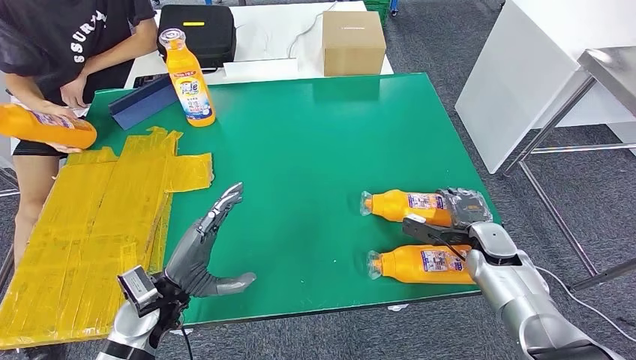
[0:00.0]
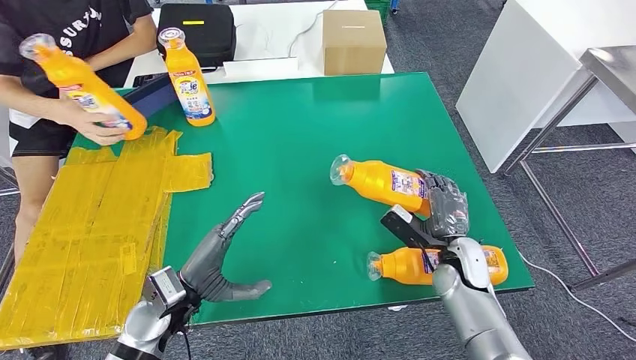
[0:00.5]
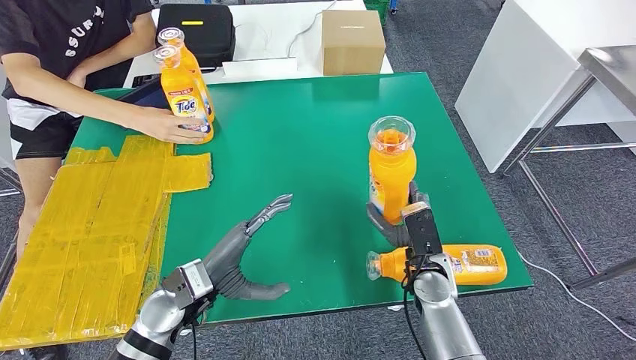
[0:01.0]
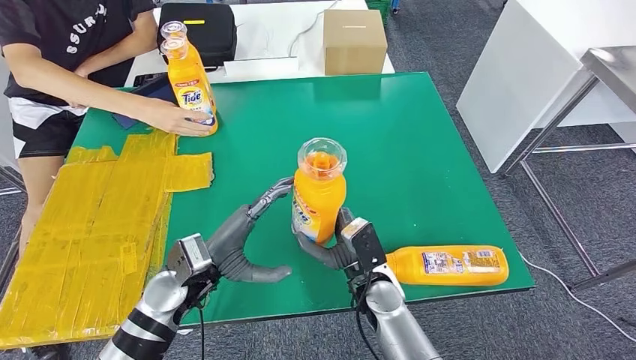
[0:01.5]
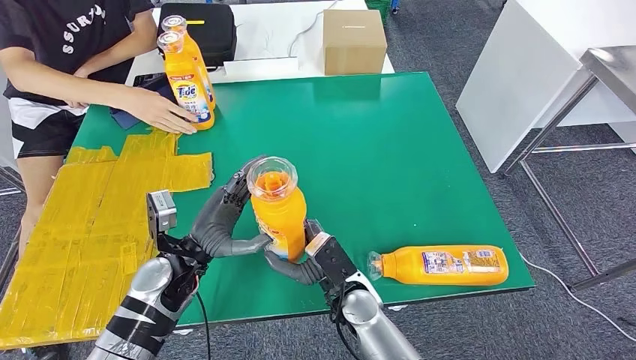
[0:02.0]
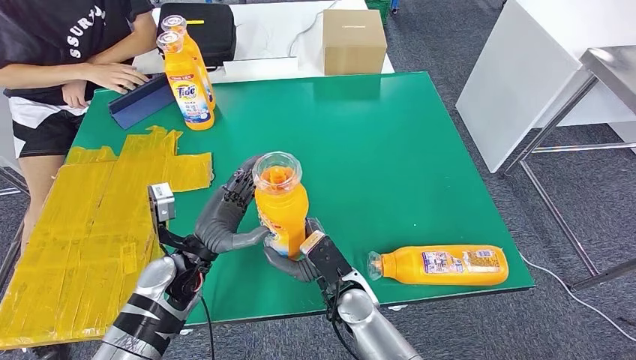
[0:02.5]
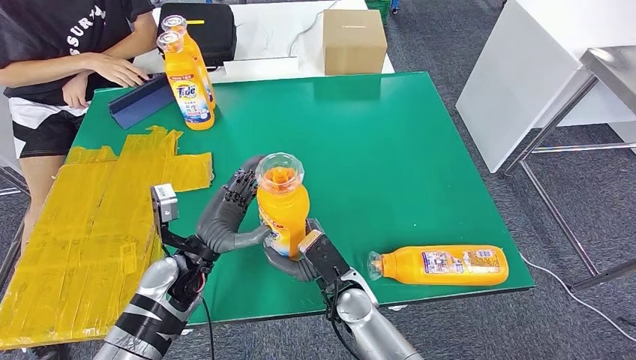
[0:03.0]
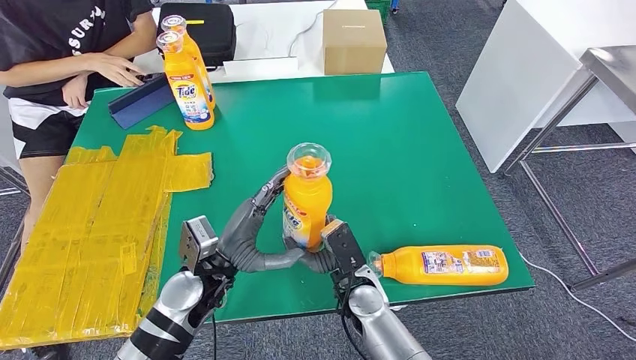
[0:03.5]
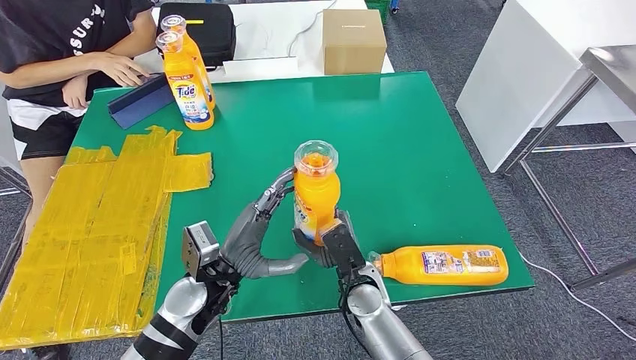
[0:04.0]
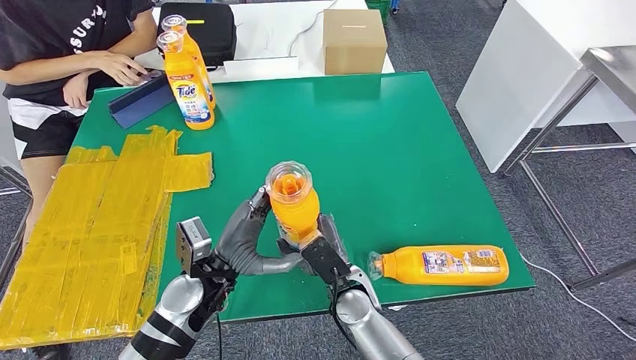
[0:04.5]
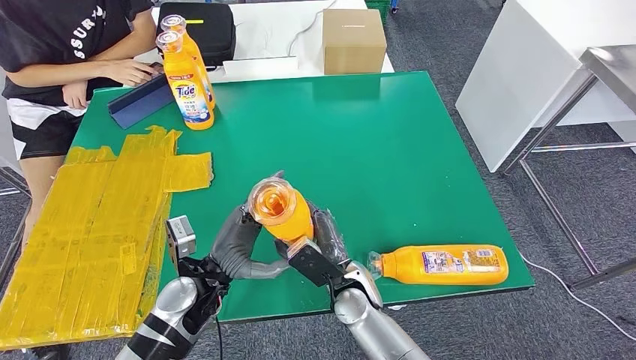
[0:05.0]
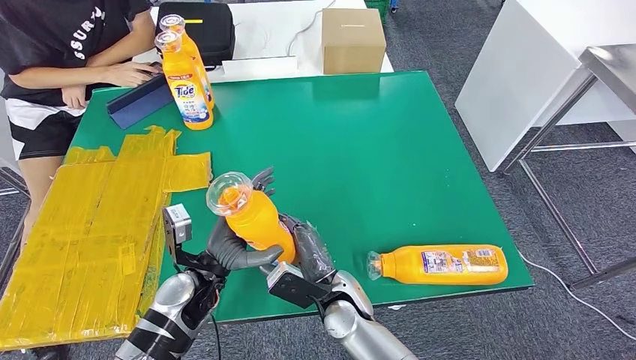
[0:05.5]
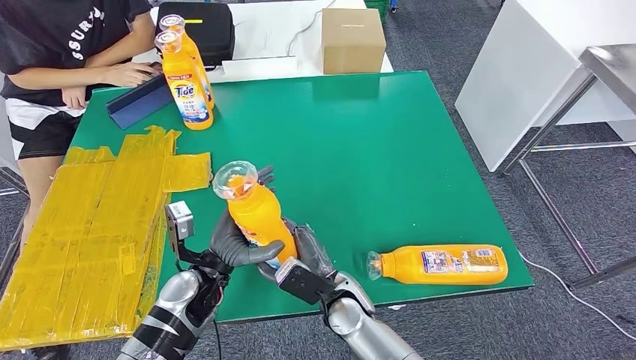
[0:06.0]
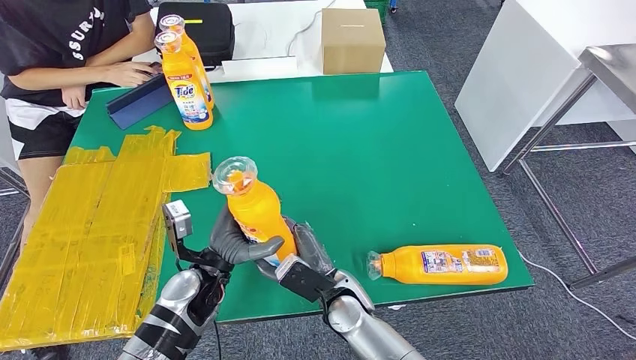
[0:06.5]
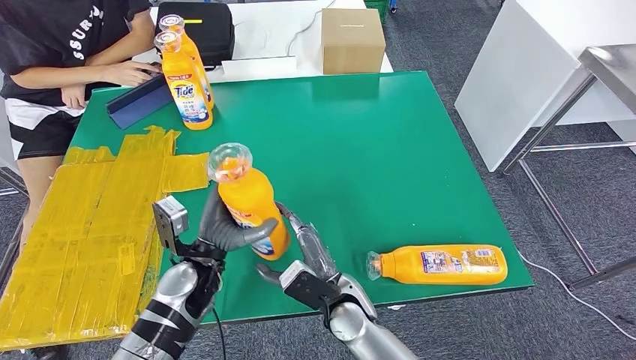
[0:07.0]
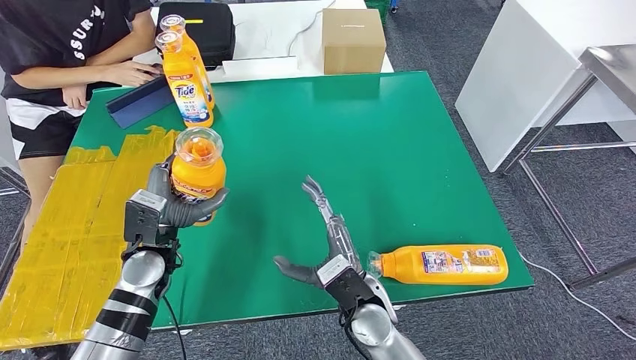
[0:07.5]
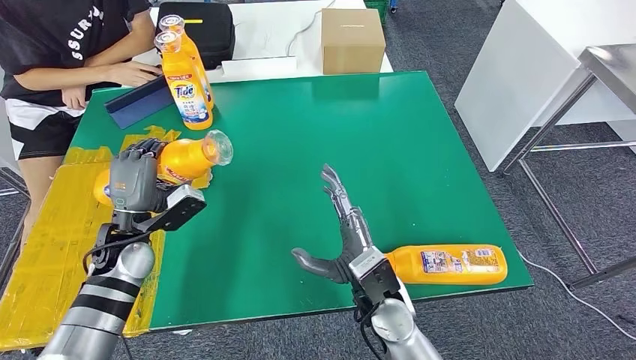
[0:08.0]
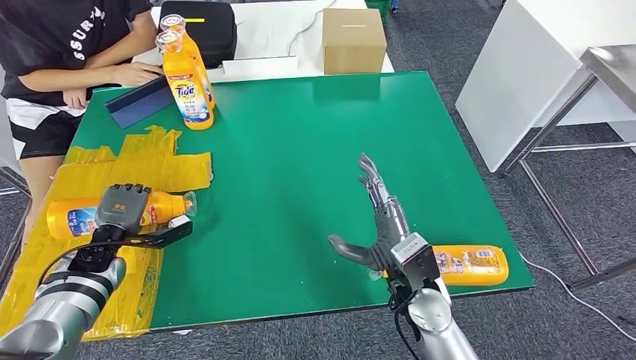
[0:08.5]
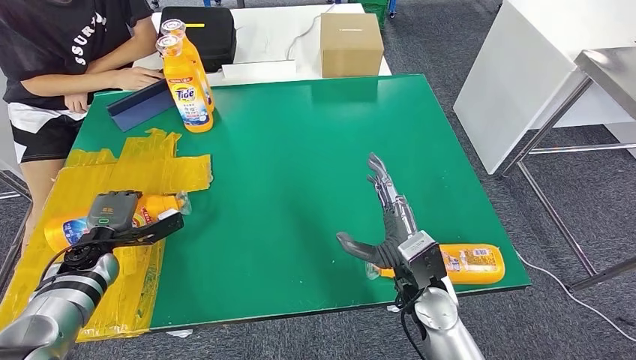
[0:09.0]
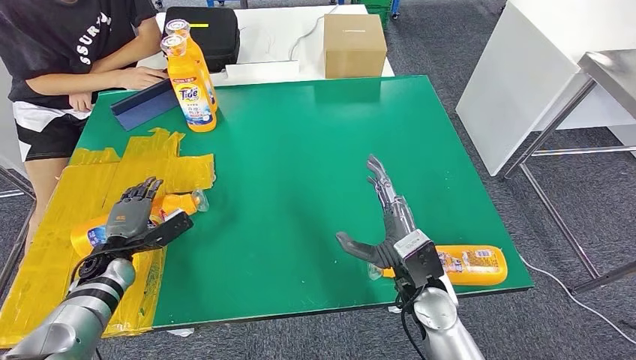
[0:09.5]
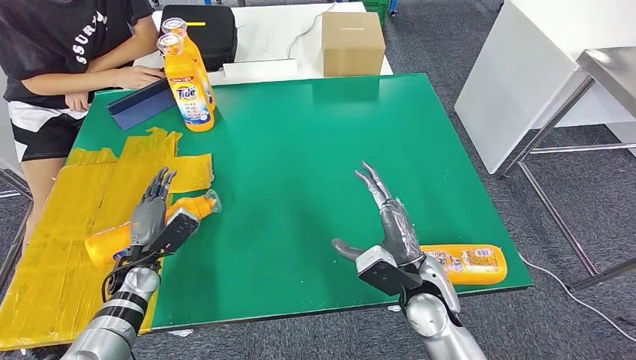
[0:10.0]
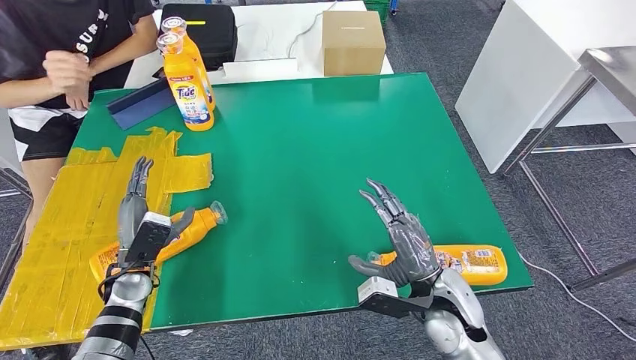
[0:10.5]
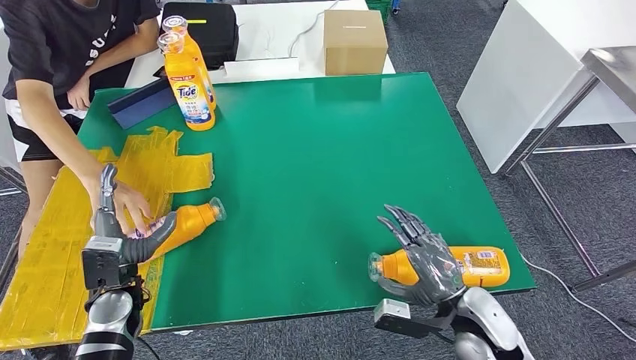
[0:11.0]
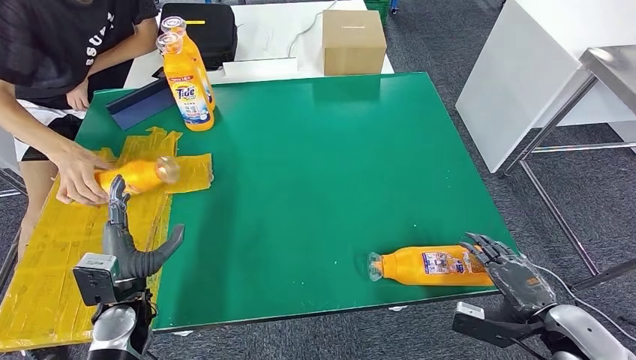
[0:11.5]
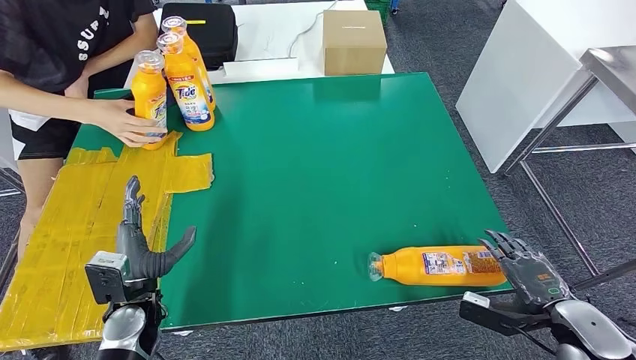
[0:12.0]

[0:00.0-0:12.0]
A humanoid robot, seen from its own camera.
Step, 0:01.5 to 0:09.5: Flip the bottle to face forward.
0:02.0 to 0:04.0: The left hand goes about 5 cm to the right.
0:04.0 to 0:06.0: The right hand moves about 5 cm.
0:06.0 to 0:08.0: The left hand goes about 15 cm to the left and forward, while the right hand shifts some 10 cm upward and to the right.

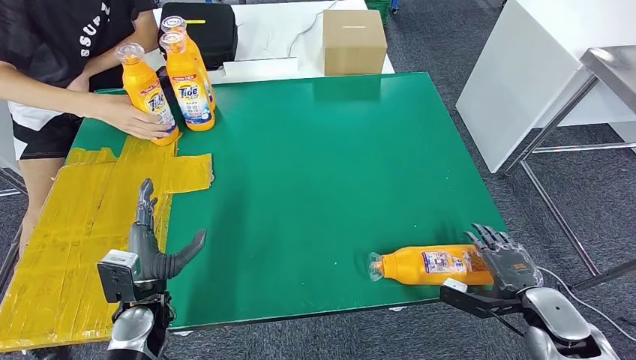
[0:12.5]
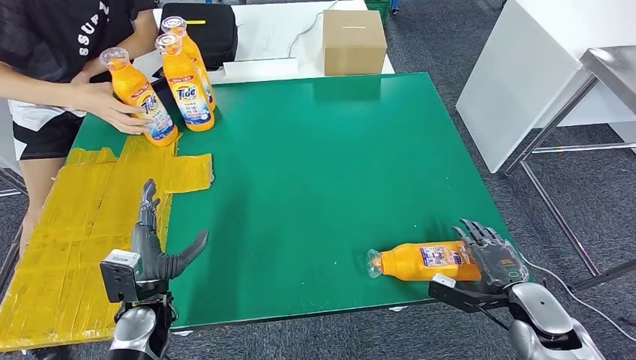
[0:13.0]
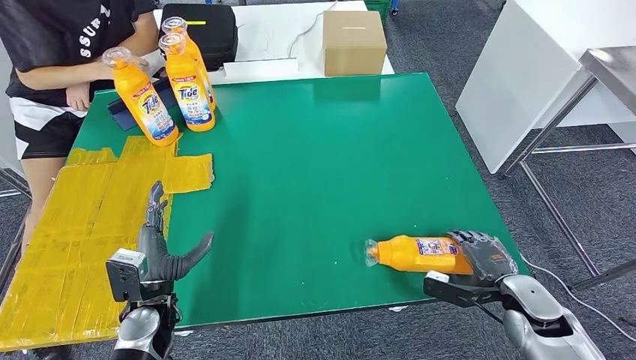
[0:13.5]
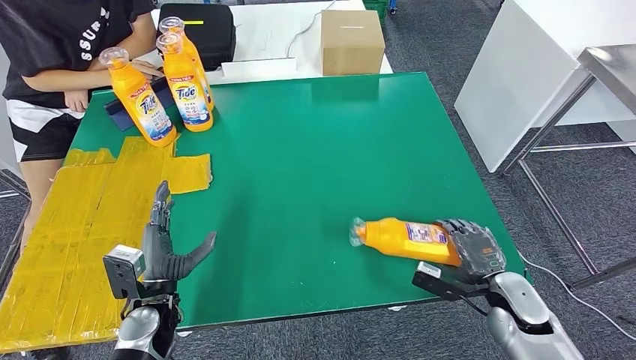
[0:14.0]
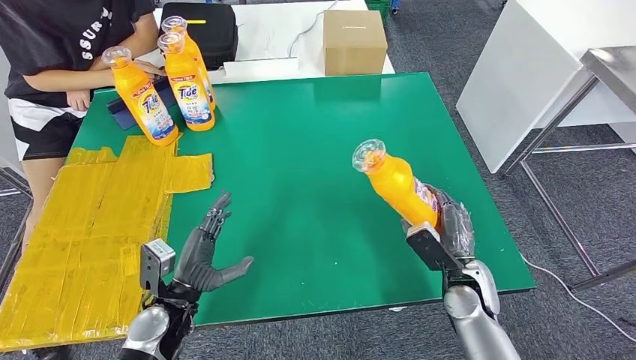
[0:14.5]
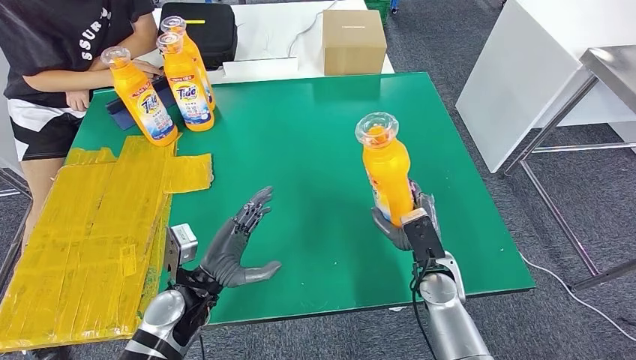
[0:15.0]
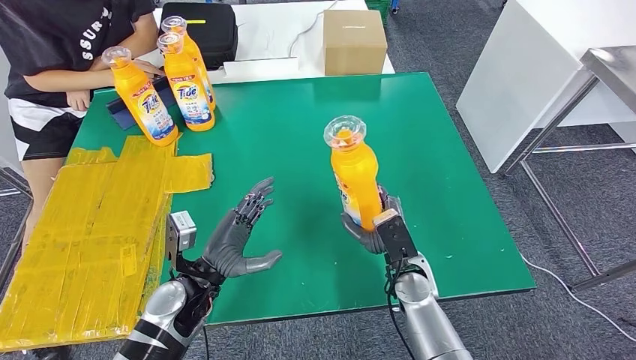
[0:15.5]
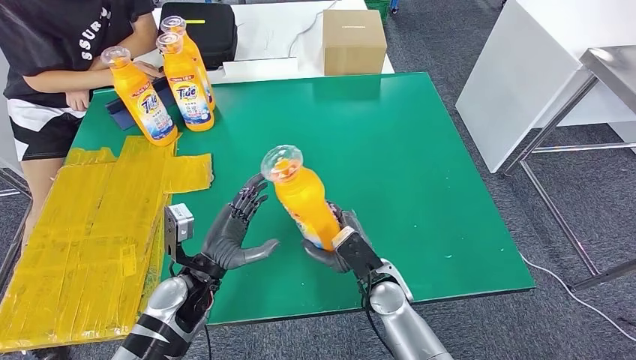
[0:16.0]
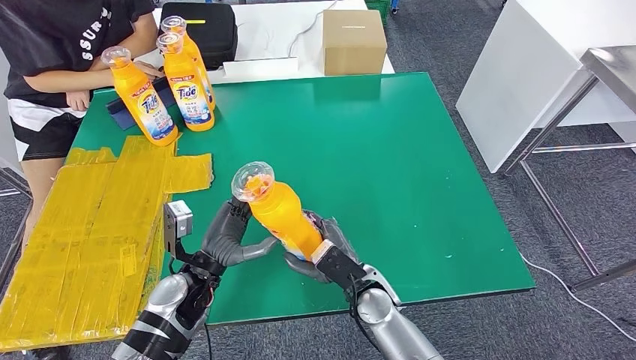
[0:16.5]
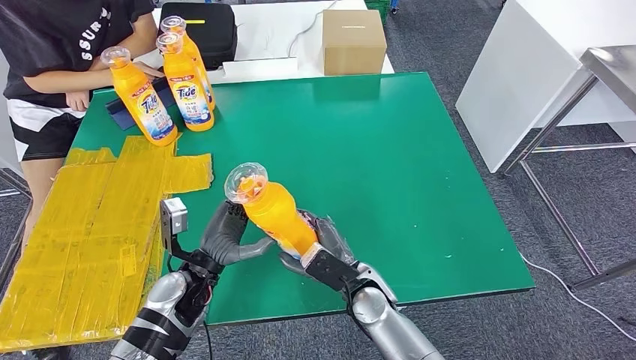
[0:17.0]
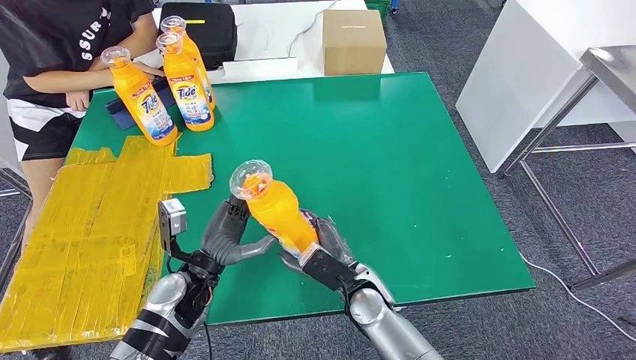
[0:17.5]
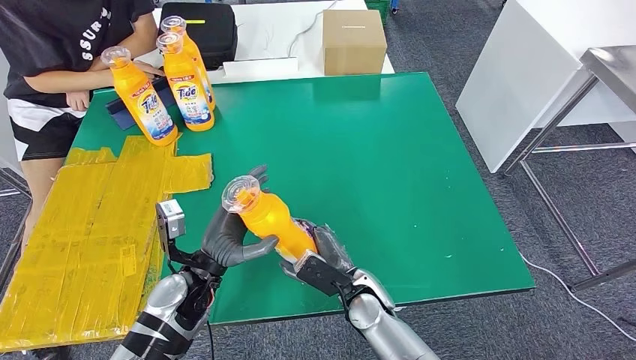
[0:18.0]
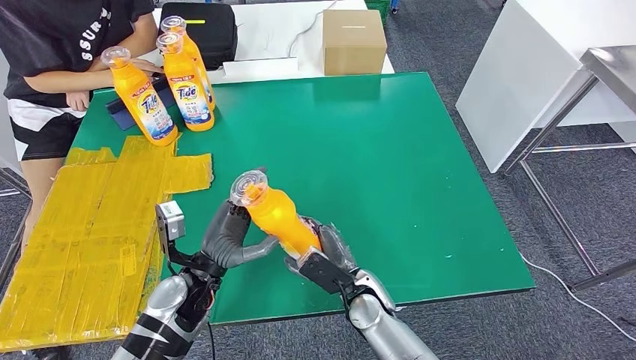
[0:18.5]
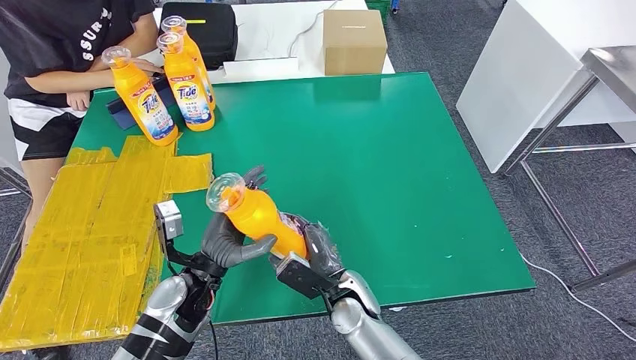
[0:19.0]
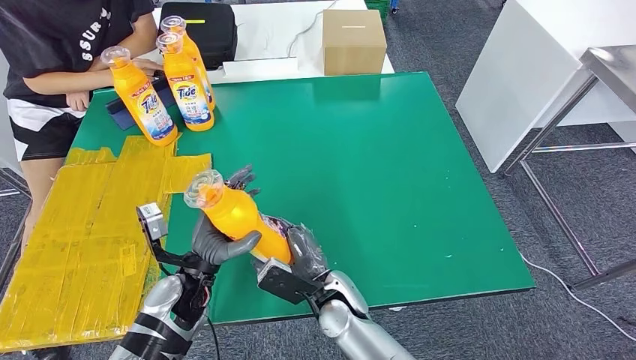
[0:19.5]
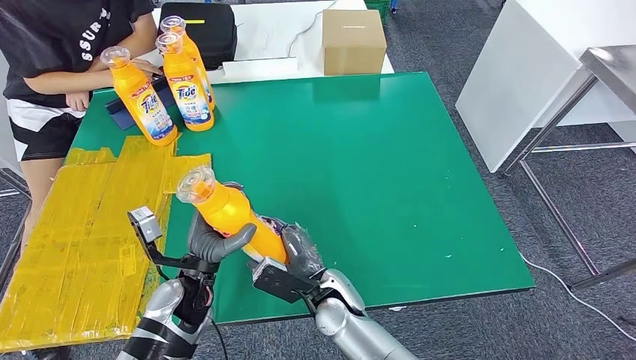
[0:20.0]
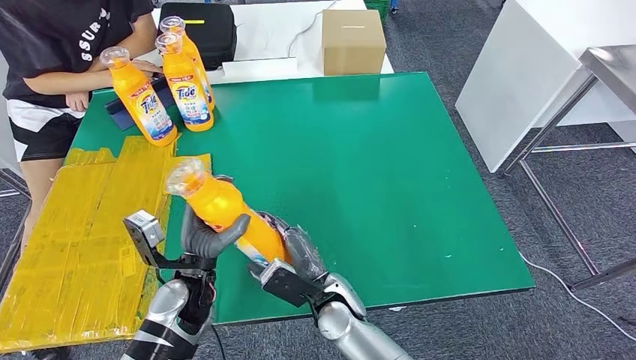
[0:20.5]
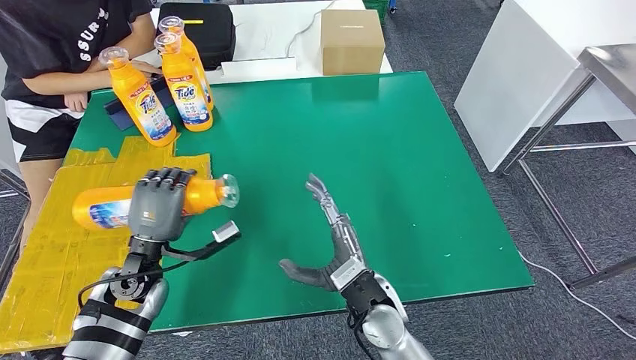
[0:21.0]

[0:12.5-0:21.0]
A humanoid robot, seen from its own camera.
0:12.5 to 0:14.5: The right hand heads to the left and forward, covering approximately 15 cm.
0:14.5 to 0:16.5: The left hand moves some 5 cm. Meanwhile the right hand travels to the left by roughly 20 cm.
0:16.5 to 0:19.0: The hands make only small movements.
0:19.0 to 0:21.0: The right hand moves upward, approximately 5 cm, while the left hand is displaced to the left by approximately 10 cm.
